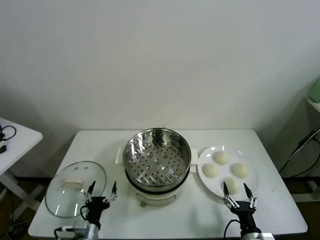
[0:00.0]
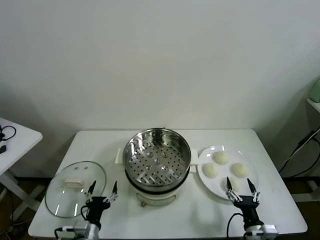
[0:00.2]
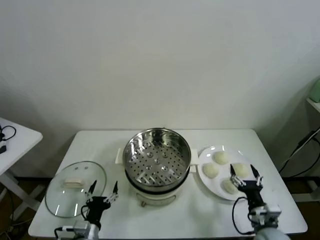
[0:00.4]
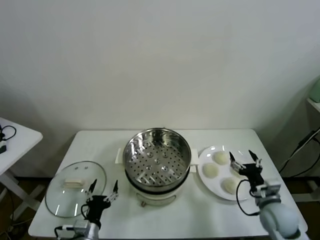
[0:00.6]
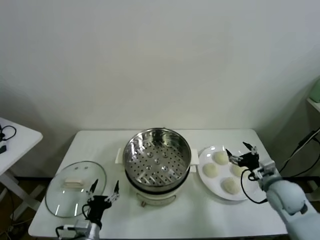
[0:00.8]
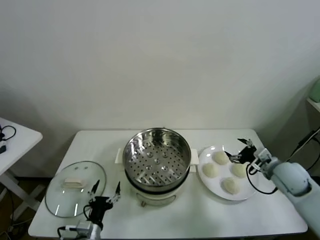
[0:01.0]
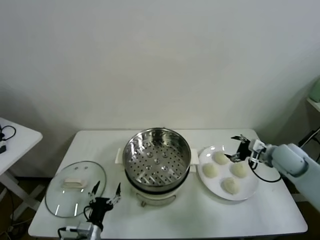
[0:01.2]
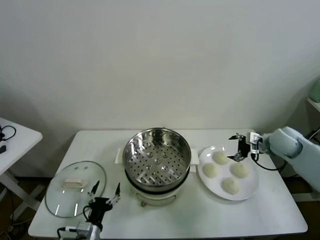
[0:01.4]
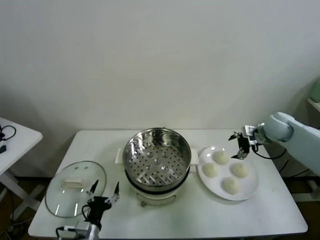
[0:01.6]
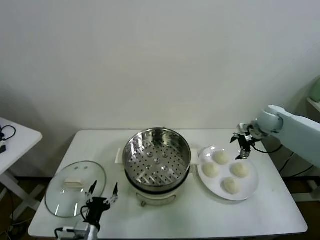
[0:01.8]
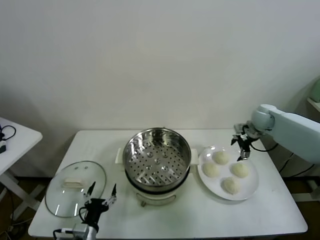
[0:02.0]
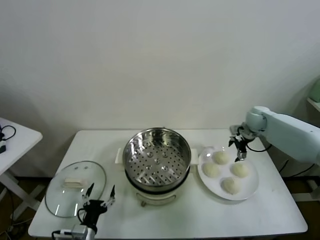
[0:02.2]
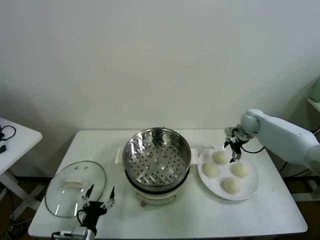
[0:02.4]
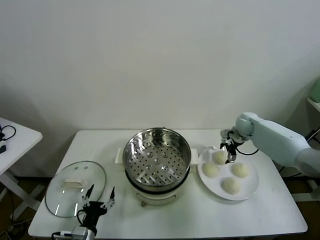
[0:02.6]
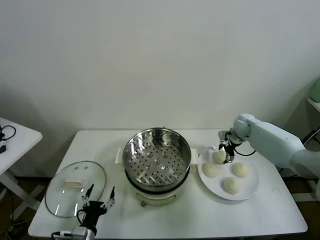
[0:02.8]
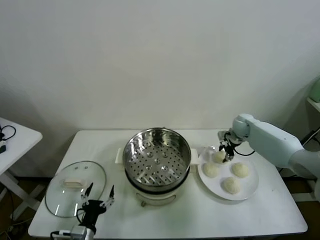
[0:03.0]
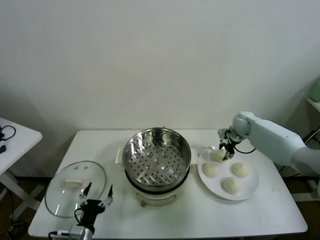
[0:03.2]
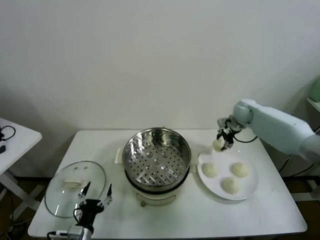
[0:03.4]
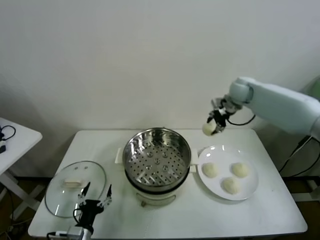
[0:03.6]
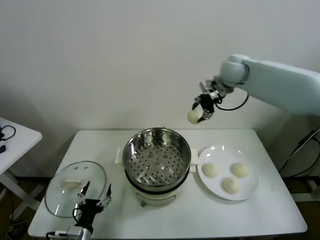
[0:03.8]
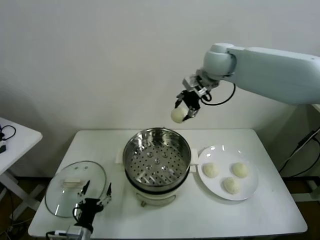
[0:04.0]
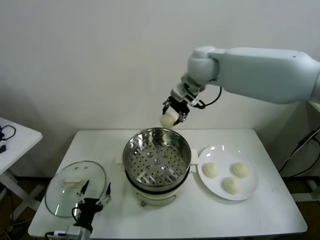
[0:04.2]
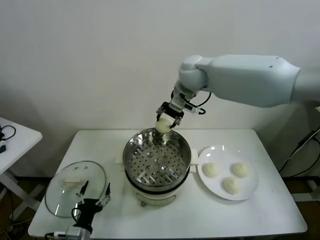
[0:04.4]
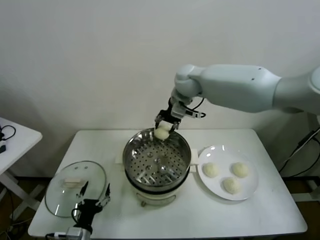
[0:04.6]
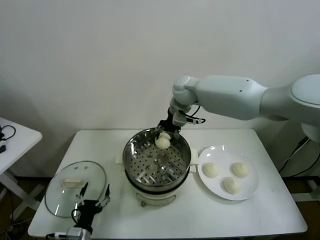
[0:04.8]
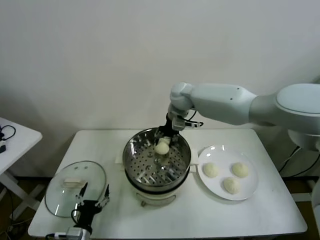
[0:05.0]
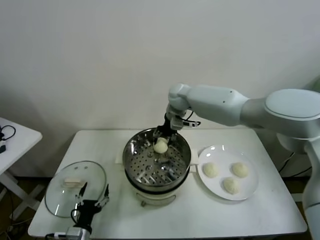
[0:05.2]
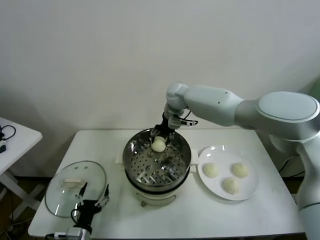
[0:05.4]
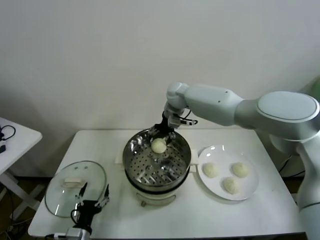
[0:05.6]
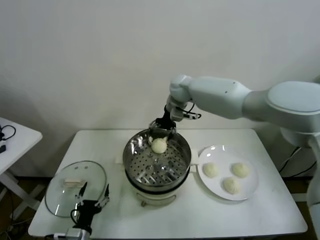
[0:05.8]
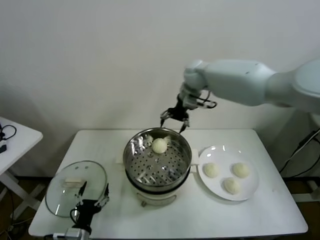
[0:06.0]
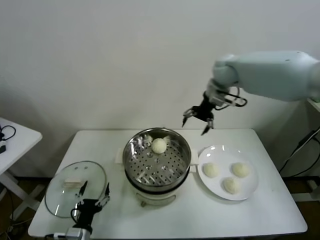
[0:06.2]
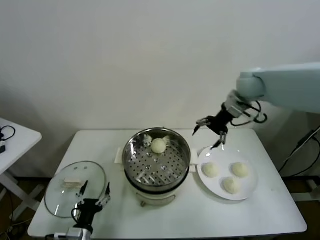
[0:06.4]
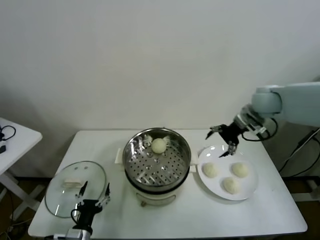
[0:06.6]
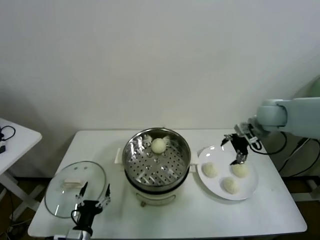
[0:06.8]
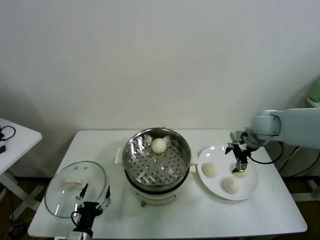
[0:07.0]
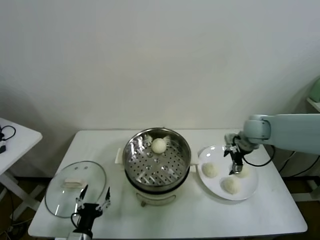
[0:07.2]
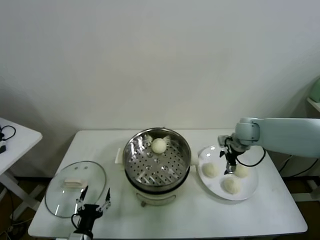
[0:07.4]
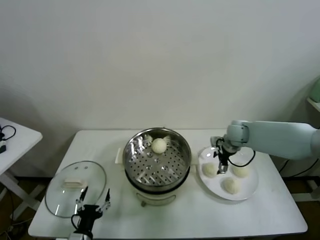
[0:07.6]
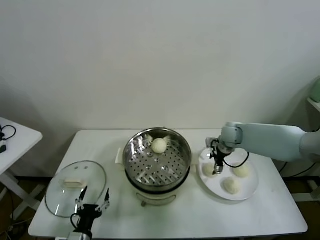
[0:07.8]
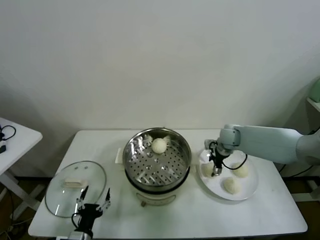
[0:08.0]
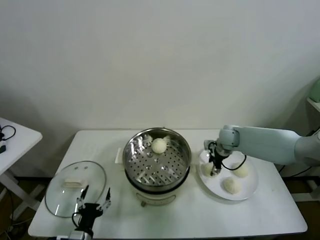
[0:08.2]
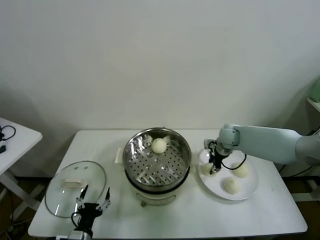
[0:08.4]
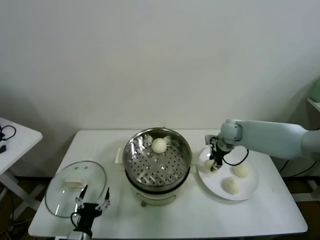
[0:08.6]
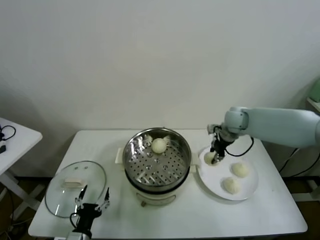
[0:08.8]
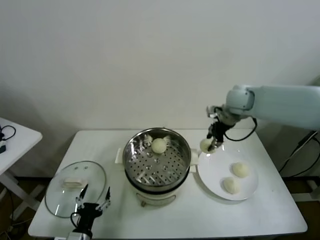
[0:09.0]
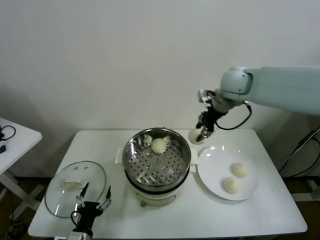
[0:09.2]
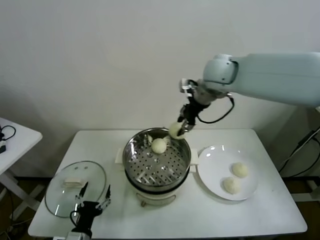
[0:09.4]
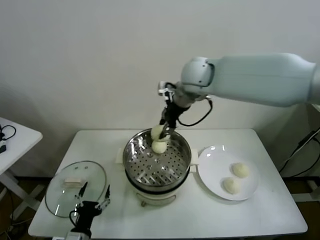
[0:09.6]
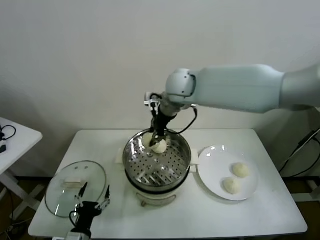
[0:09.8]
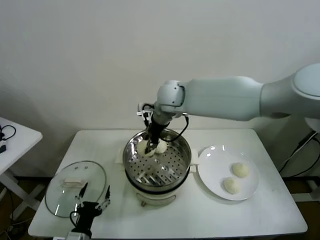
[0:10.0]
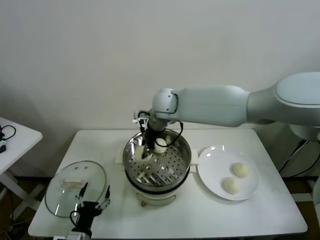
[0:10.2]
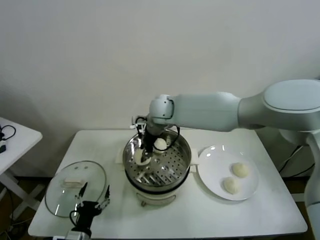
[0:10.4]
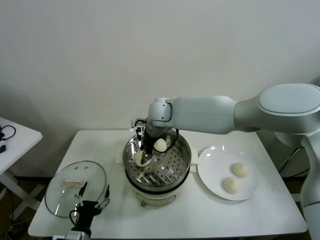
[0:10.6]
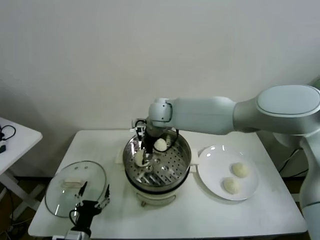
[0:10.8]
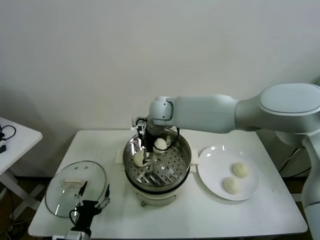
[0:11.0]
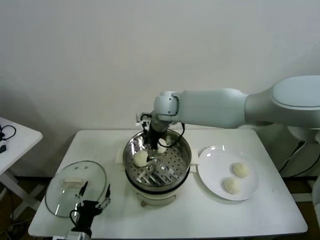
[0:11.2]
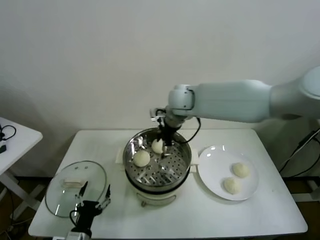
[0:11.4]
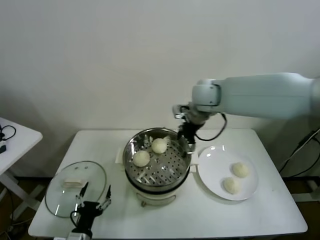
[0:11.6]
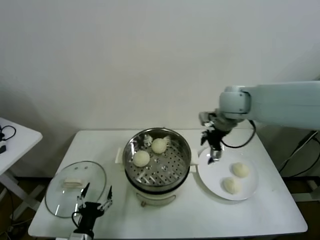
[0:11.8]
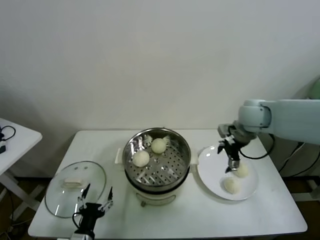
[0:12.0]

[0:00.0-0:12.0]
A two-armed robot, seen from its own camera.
Task of the whole recording: take steamed baozi put them in steamer.
Step, 0:00.0 to 0:03.0: Grasp the baozi in the plate with right gripper.
Step, 0:03.2 to 0:05.6: Place the baozi on the steamer with right gripper.
Step, 0:05.8 to 0:08.2: Grasp the baozi in the plate with right gripper.
Step, 0:08.4 to 0:11.0: Place the baozi on the steamer with right gripper.
0:01.6 to 0:03.0: The right gripper is displaced downward, forward and to the left by some 15 cm, and closes up.
0:03.0 to 0:04.4: The right gripper moves to the left and upward, some 35 cm.
0:04.4 to 0:06.0: The right gripper goes about 10 cm to the right and forward, reaches some 10 cm downward, then returns, and opens.
0:06.0 to 0:07.6: The right gripper is displaced downward and to the right by roughly 25 cm.
0:07.6 to 0:09.0: The right gripper moves upward, roughly 15 cm, and closes its fingers.
0:09.0 to 0:10.4: The right gripper travels to the left by approximately 25 cm.
0:10.4 to 0:12.0: The right gripper is displaced to the right by approximately 30 cm, and opens.

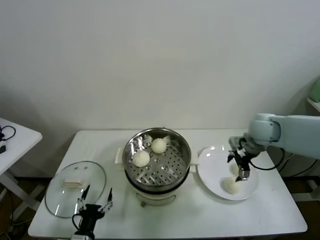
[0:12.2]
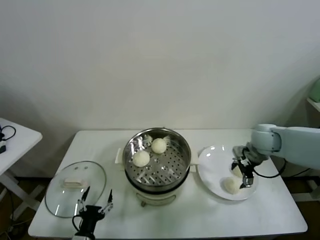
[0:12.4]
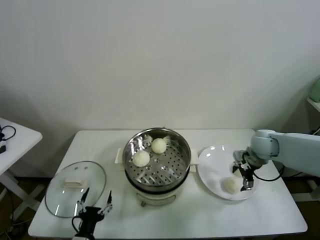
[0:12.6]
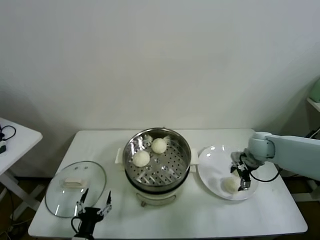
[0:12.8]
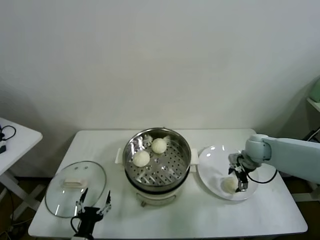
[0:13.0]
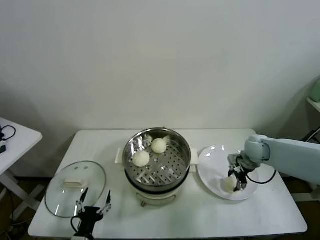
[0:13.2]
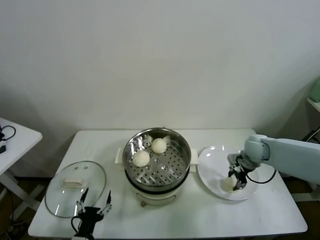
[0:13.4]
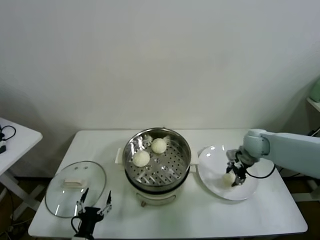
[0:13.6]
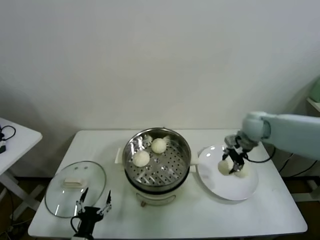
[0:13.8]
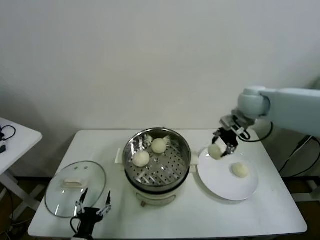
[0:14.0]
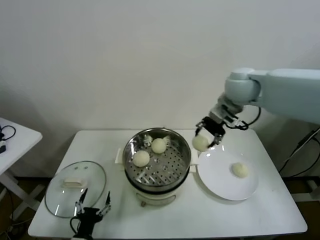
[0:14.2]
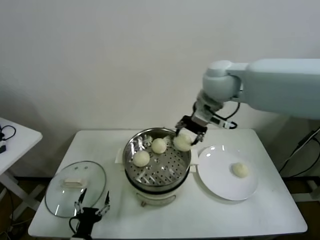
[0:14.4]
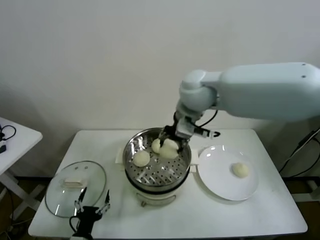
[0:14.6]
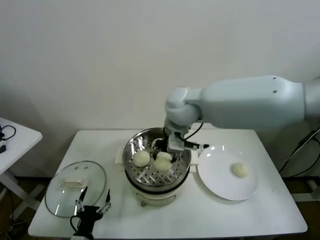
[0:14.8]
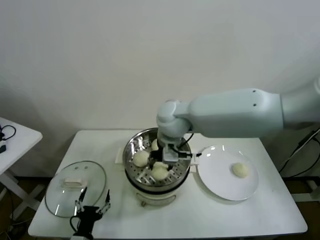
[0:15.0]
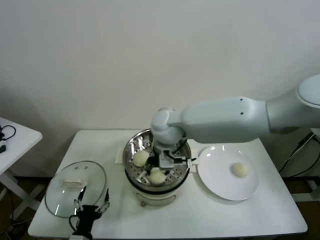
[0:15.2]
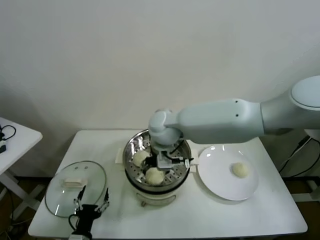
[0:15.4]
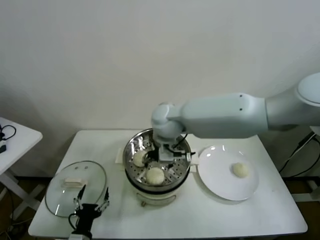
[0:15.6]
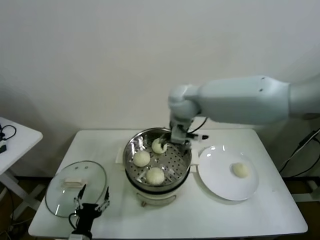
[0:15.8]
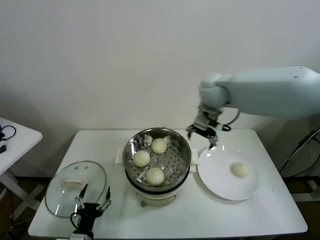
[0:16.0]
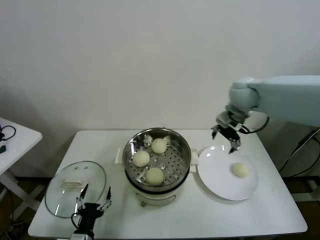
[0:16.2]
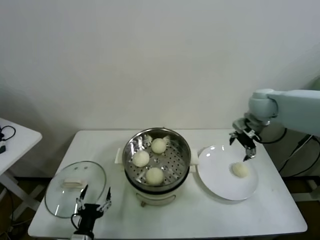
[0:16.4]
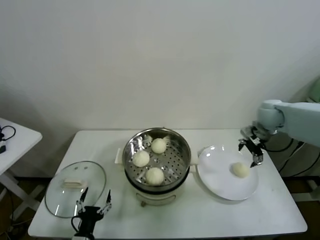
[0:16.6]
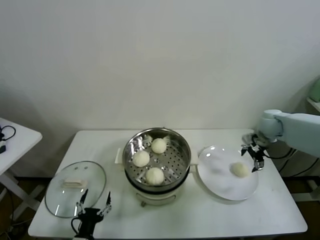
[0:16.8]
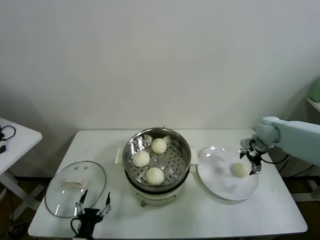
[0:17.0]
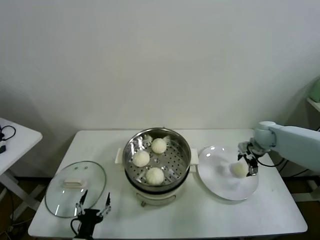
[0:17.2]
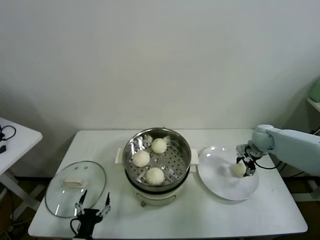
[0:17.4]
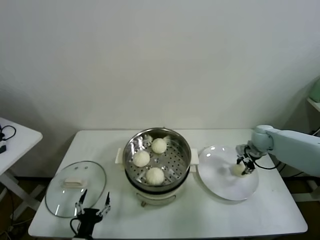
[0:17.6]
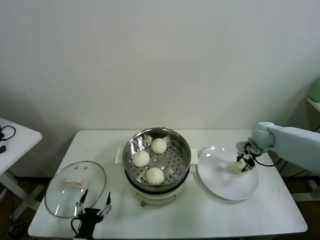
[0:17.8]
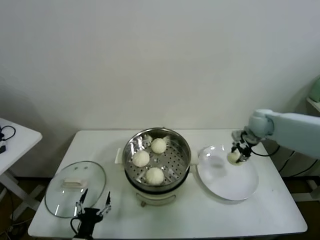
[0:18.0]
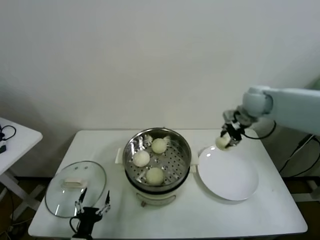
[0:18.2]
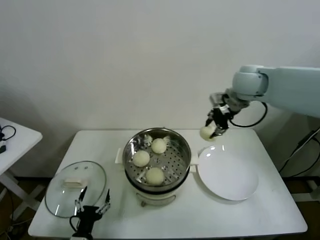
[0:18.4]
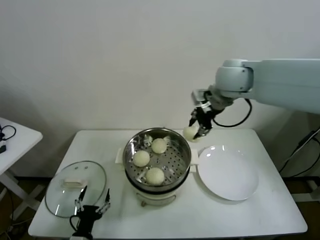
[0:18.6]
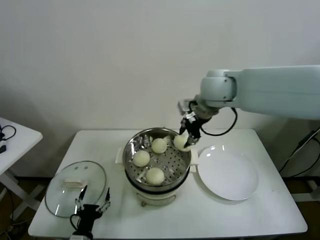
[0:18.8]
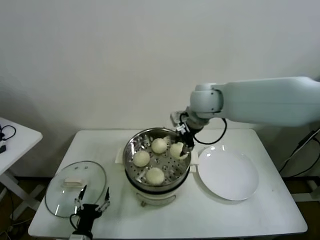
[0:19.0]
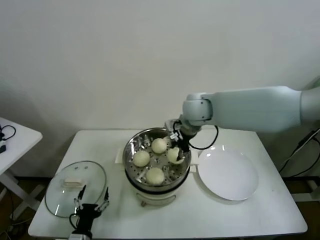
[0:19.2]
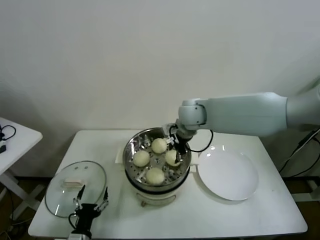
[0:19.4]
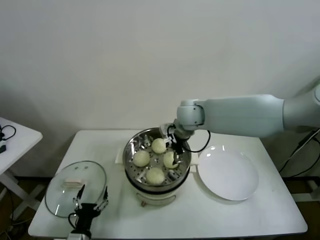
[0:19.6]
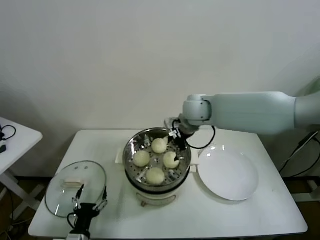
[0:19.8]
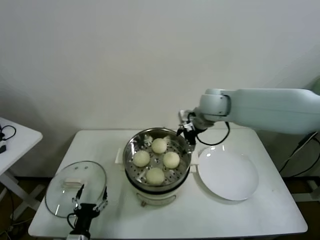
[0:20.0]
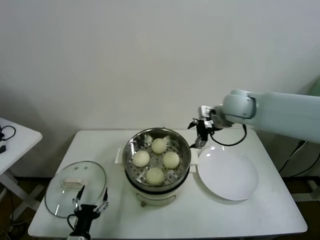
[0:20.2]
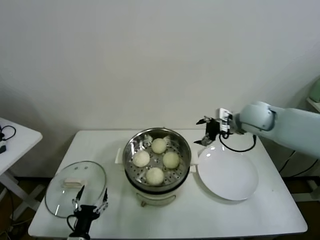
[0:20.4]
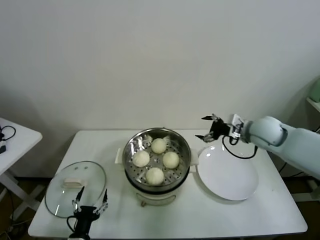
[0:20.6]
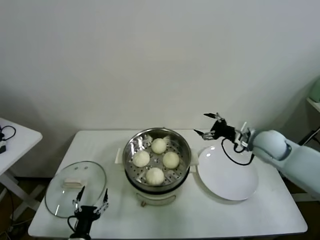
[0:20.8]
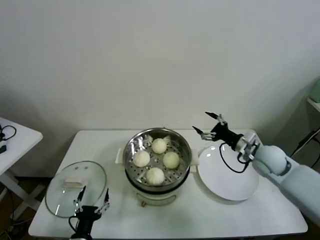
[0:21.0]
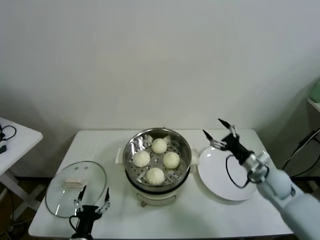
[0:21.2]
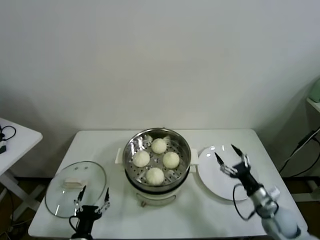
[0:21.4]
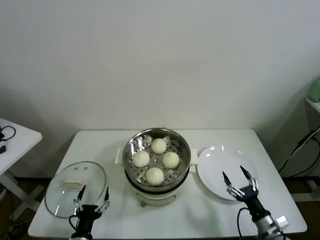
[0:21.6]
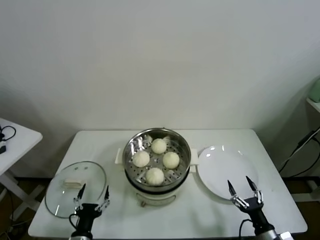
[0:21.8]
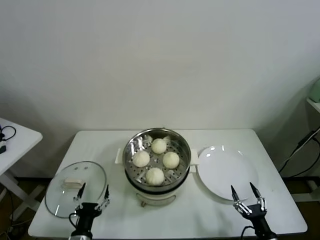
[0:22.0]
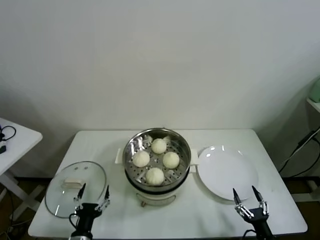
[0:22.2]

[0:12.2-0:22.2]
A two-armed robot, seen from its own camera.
Task of the whole recording: take steamed baozi put them in steamer.
Step, 0:13.4 to 0:15.4: Place the baozi on the steamer with right gripper.
Step, 0:15.6 to 0:17.6: Grasp the baozi in the plate with right gripper.
Step, 0:17.8 to 0:19.6: Place the baozi on the steamer with right gripper.
0:12.2 to 0:13.6: The right gripper shifts approximately 10 cm downward, and closes.
0:13.6 to 0:15.0: The right gripper goes roughly 35 cm to the left and upward.
0:15.0 to 0:16.4: The right gripper is displaced to the right by approximately 30 cm, and opens up.
0:16.4 to 0:18.0: The right gripper is displaced downward by some 10 cm, and closes its fingers.
0:18.0 to 0:19.4: The right gripper heads to the left, covering approximately 25 cm.
0:19.4 to 0:20.8: The right gripper is displaced to the right by roughly 25 cm, and opens.
0:20.8 to 0:22.2: The right gripper travels backward and downward by some 40 cm.
